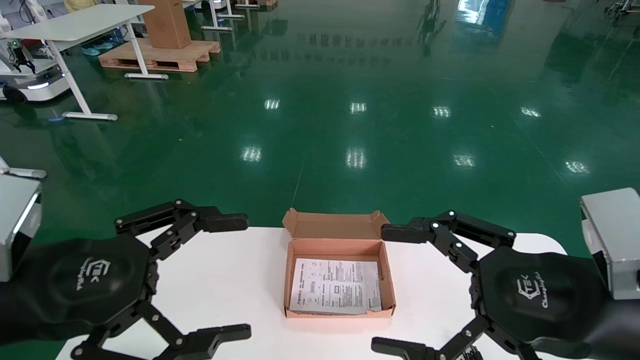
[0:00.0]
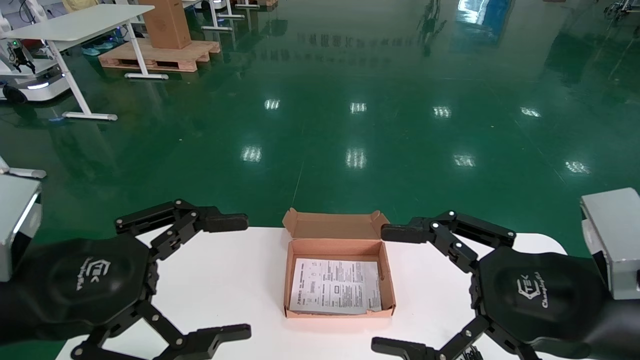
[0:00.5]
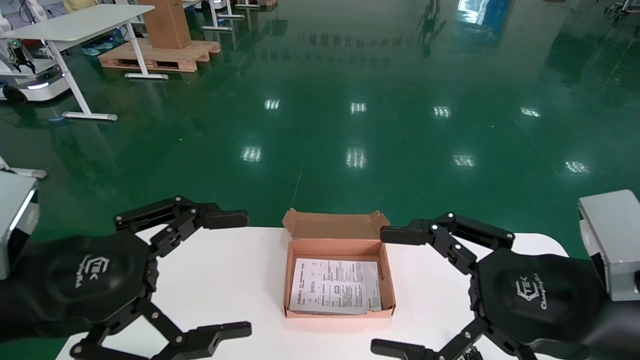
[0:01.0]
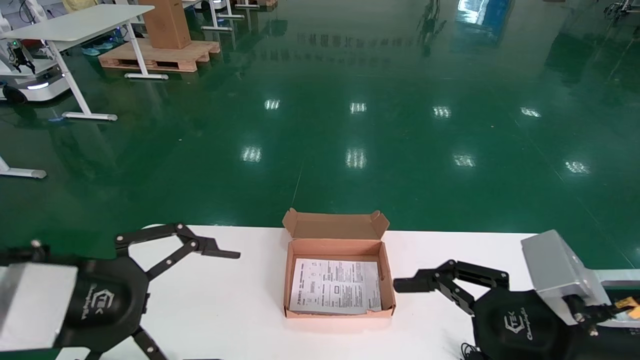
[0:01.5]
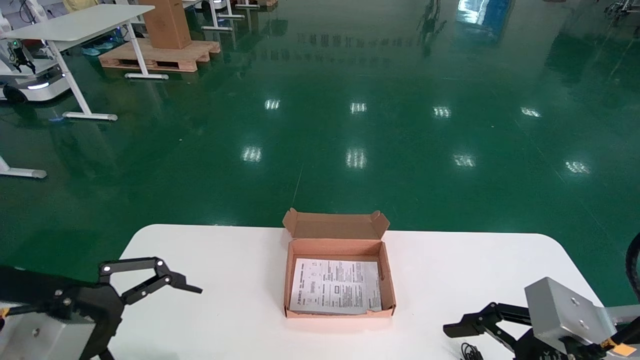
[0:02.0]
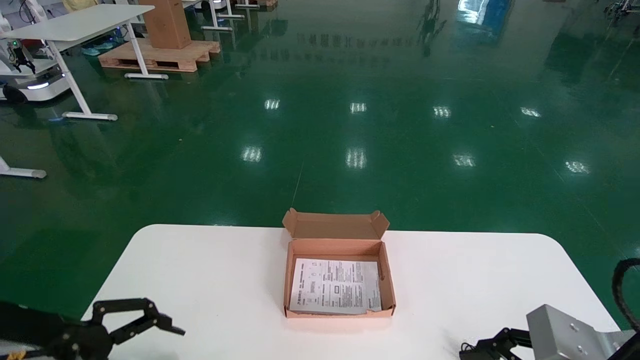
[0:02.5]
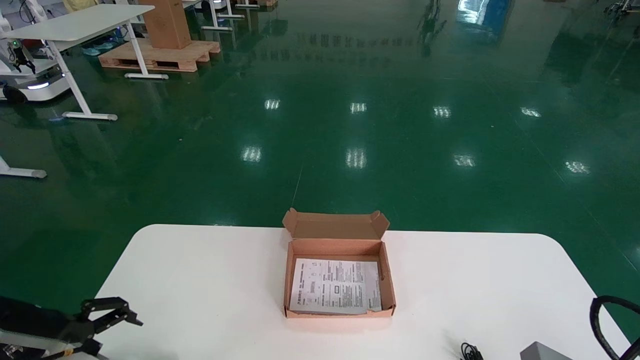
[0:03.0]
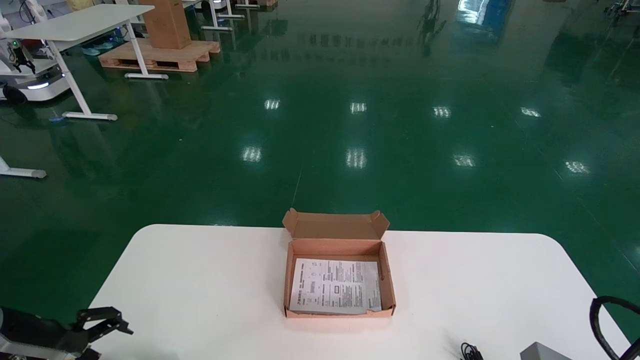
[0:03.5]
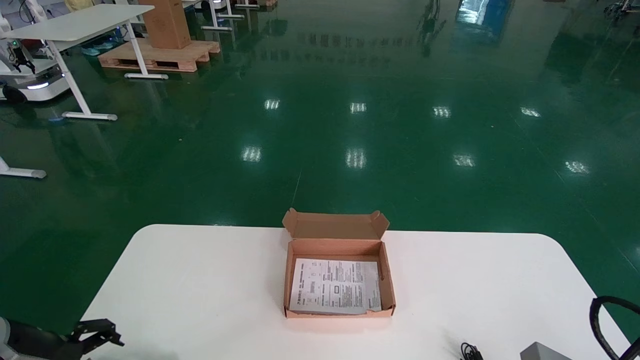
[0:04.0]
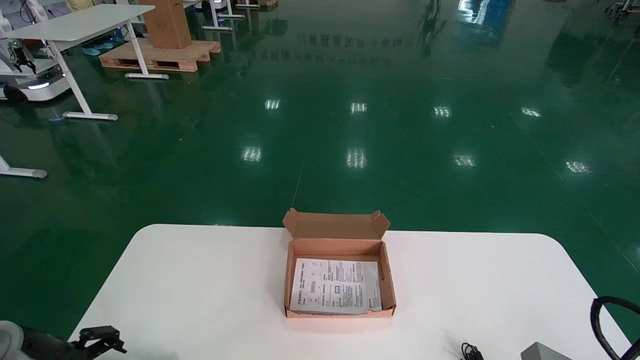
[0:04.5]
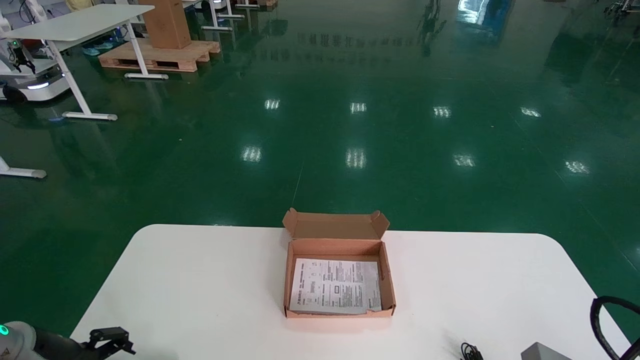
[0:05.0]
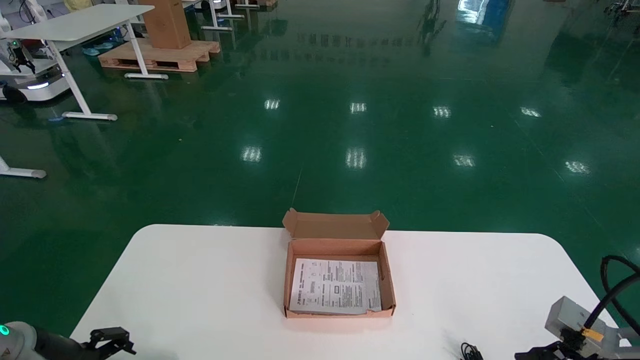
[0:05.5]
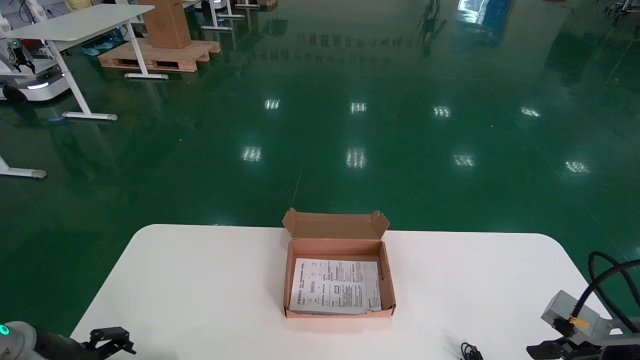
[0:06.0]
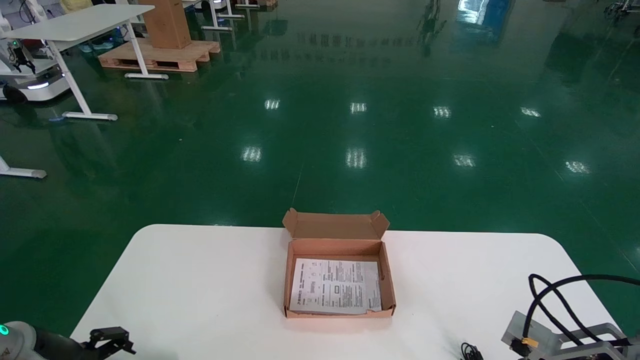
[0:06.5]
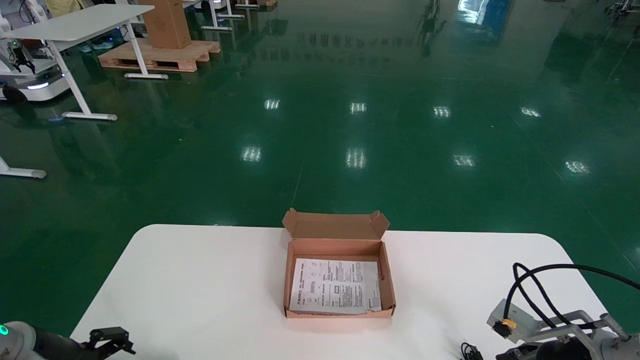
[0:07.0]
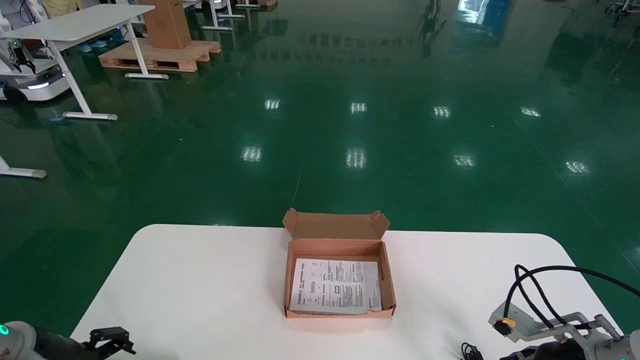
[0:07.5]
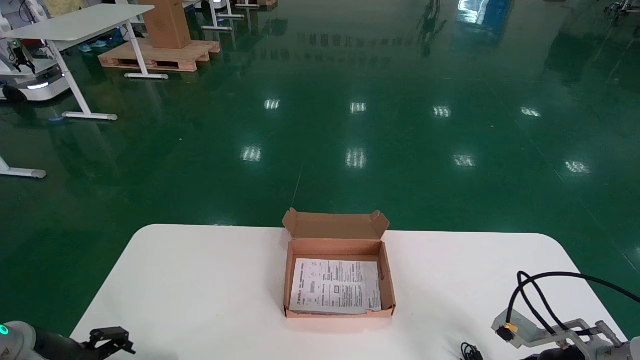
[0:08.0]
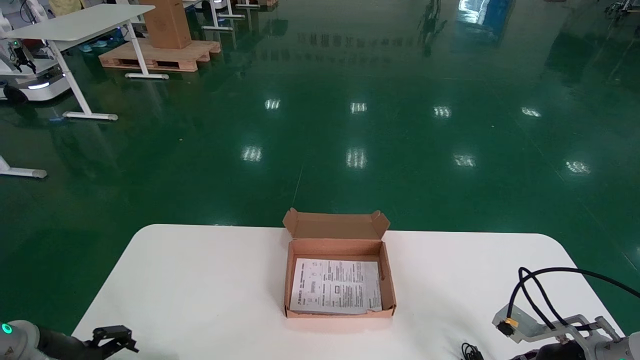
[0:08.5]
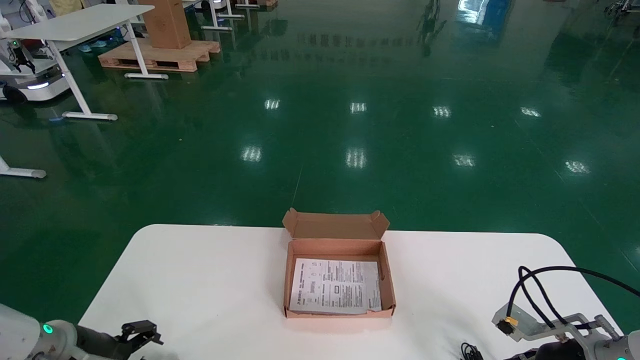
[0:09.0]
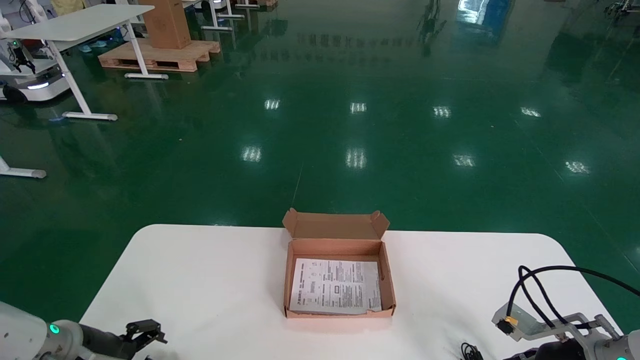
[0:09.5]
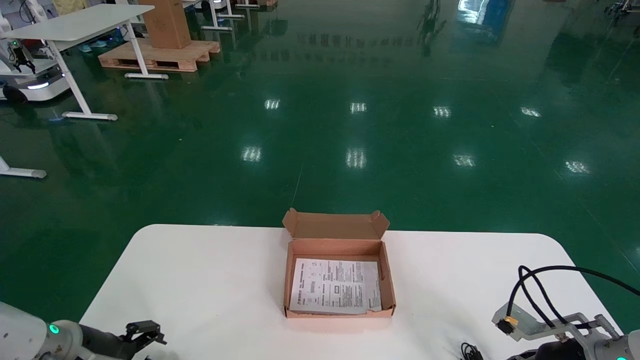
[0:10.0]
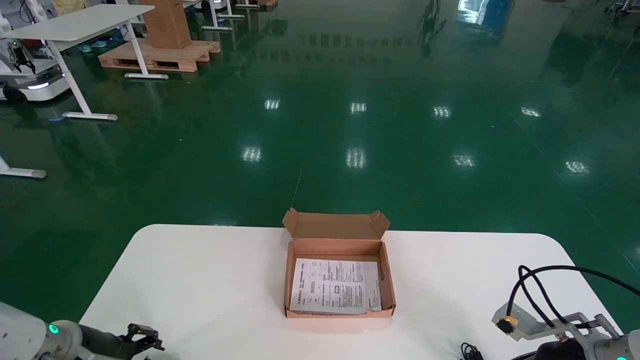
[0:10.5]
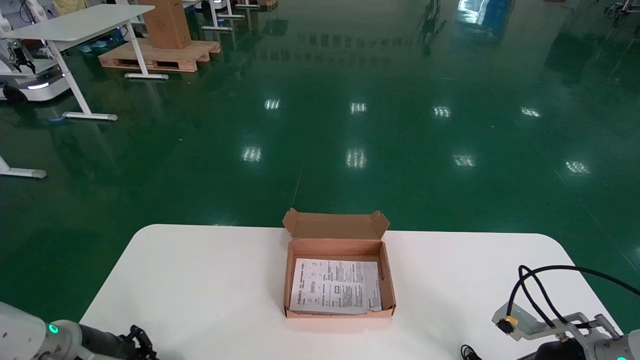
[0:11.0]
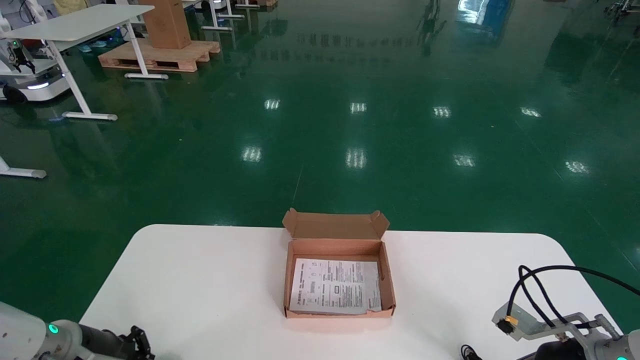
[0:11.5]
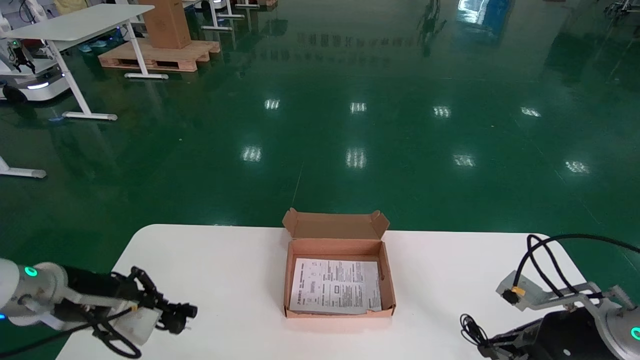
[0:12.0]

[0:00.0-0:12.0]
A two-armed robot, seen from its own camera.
Step, 0:01.5 to 0:12.0: Grab and pick up the mouse and power cord from the accessory packaging area.
0:00.0 to 0:02.0: The right gripper shifts by approximately 5 cm.
0:02.0 to 0:04.0: The right gripper is displaced downward by about 5 cm; the left gripper is displaced downward, forward and to the left by about 15 cm.
0:04.0 to 0:06.0: The right gripper shifts by some 5 cm; the left gripper shifts by some 5 cm.
0:06.0 to 0:08.0: The right gripper shifts roughly 15 cm forward and downward.
0:08.0 to 0:10.0: There are only small adjustments of the grippers.
0:10.0 to 0:12.0: The left gripper closes its fingers. Meanwhile the right gripper closes up.

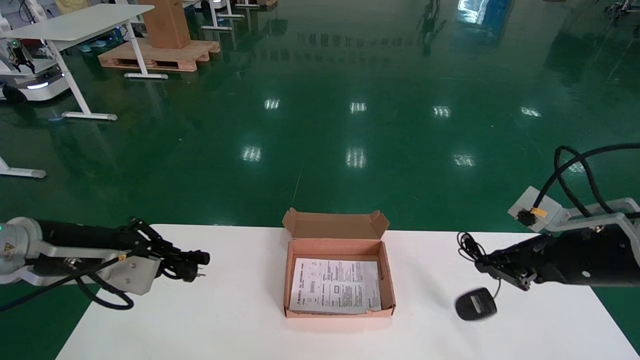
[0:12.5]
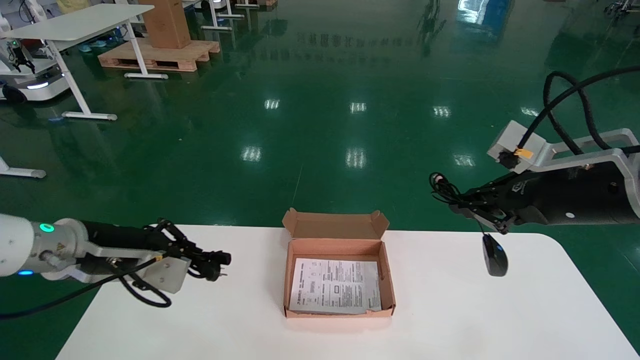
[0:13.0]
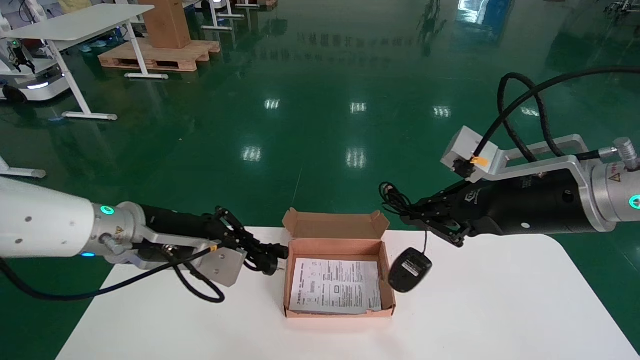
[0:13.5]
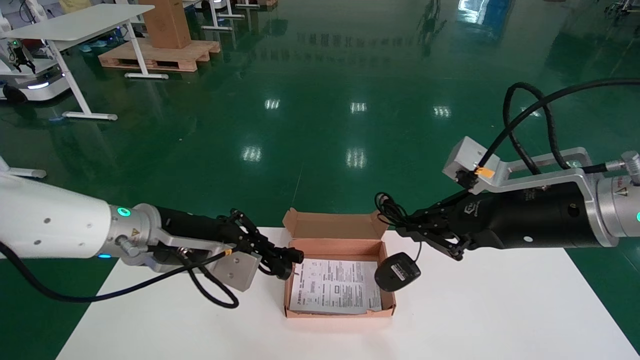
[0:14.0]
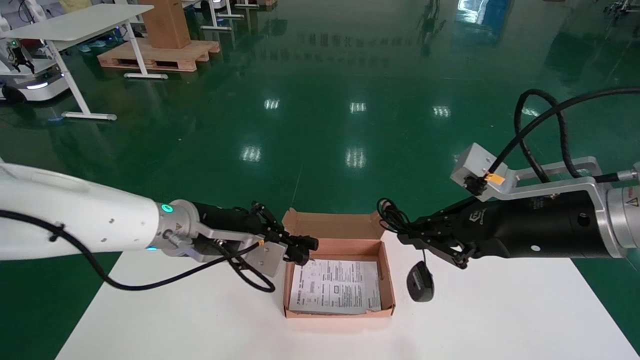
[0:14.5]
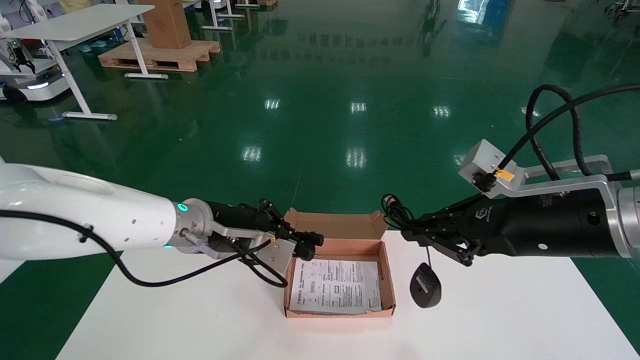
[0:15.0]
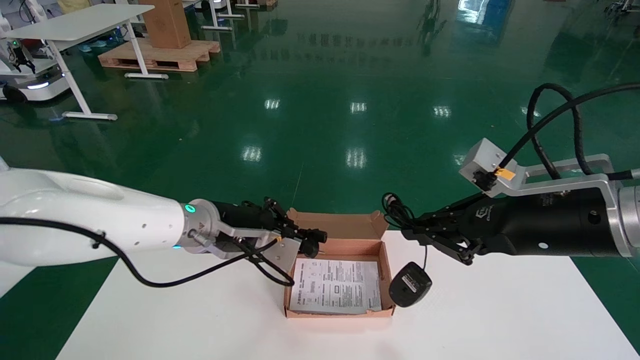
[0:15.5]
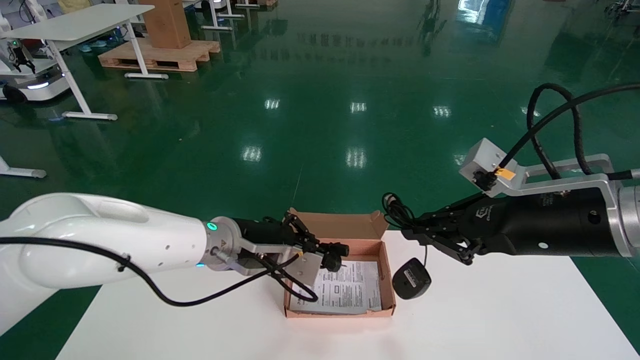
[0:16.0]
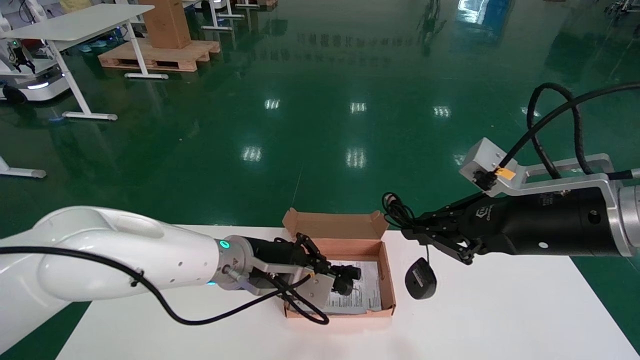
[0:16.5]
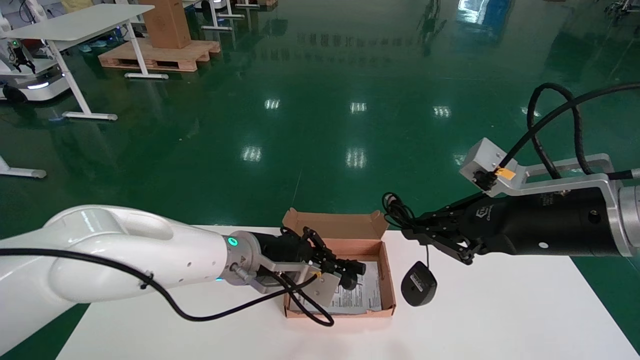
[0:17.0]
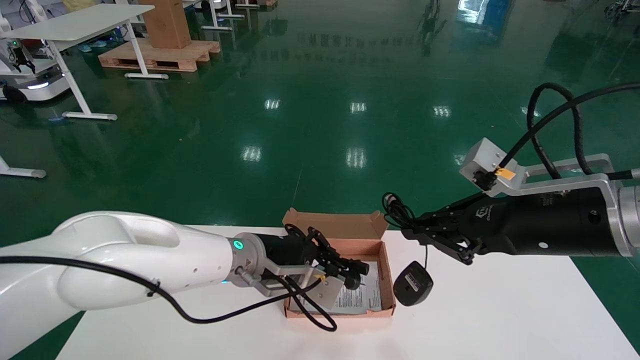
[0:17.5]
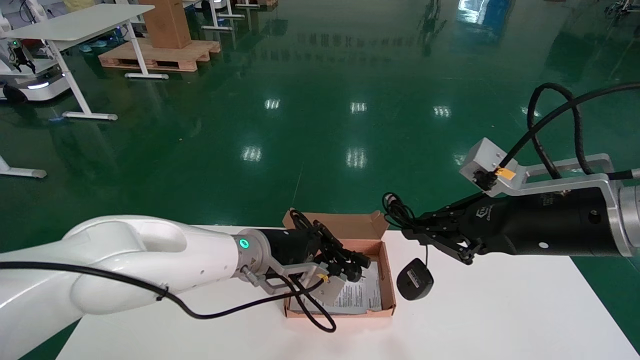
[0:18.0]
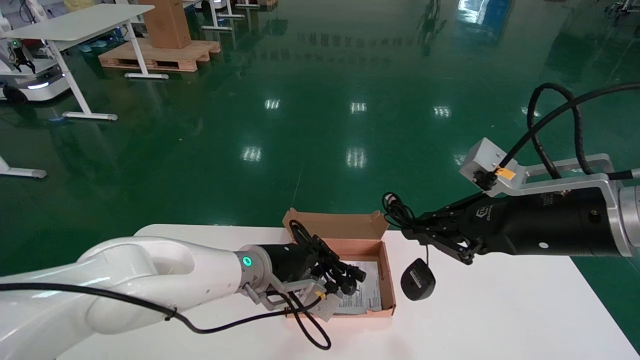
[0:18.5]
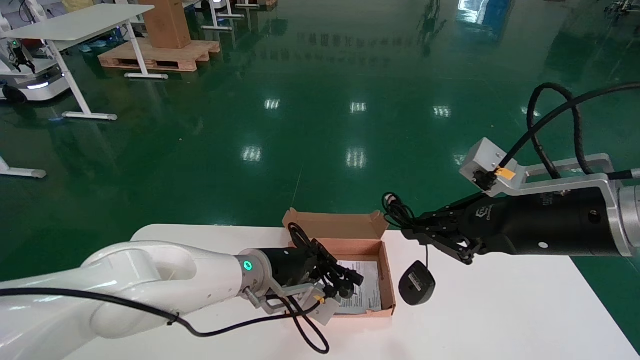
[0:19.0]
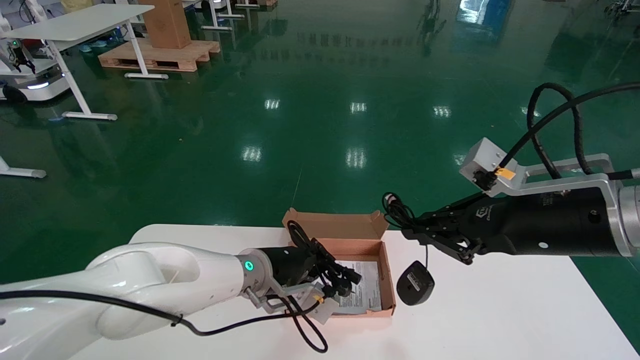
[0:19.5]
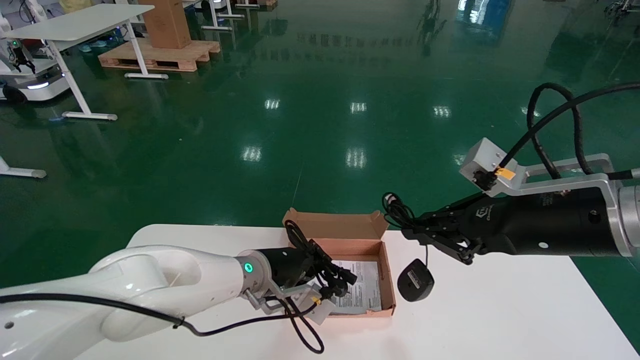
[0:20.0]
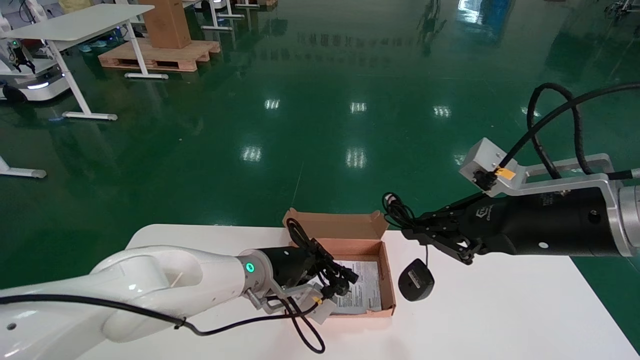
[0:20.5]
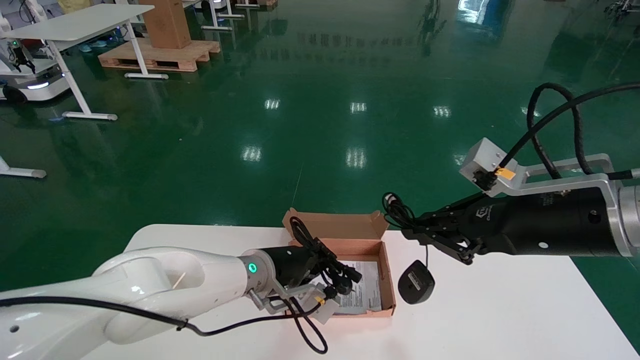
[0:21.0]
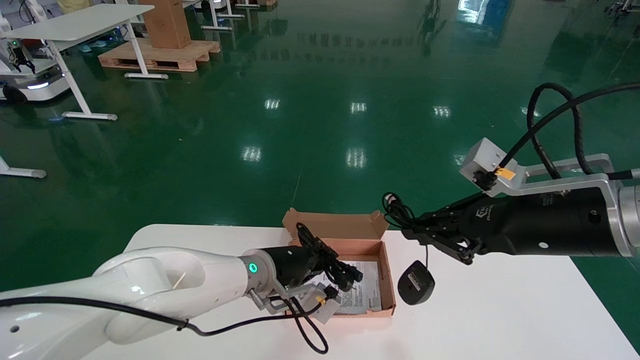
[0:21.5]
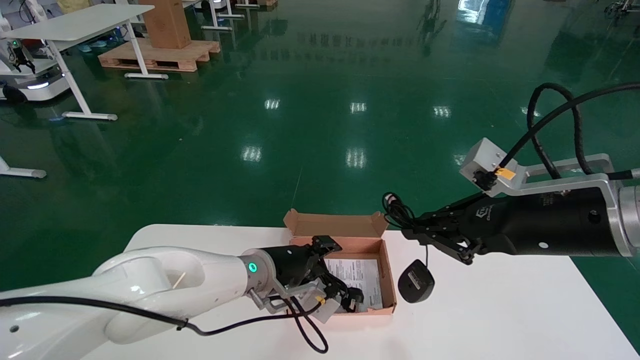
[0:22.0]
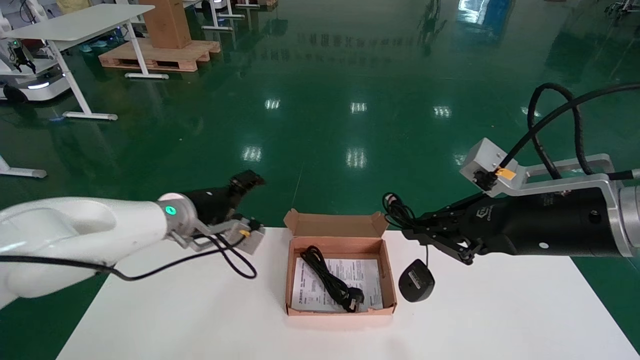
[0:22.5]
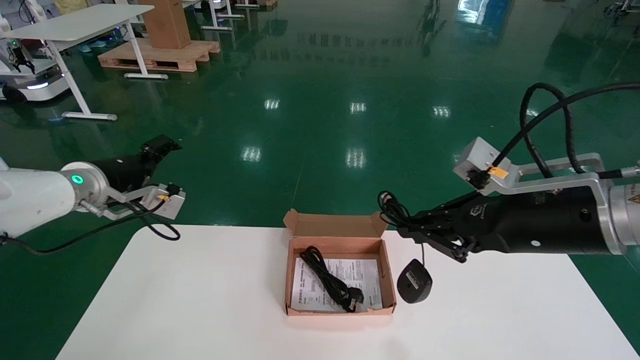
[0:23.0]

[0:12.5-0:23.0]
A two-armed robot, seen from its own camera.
0:12.5 to 0:14.5: The right gripper moves upward and to the left, about 25 cm. The left gripper moves to the right and upward, about 15 cm.
0:14.5 to 0:16.5: The left gripper shifts some 10 cm to the right.
0:16.5 to 0:19.0: The left gripper moves some 5 cm.
0:19.0 to 0:21.0: The grippers move only a little.
0:21.0 to 0:23.0: The left gripper is displaced to the left and upward by about 10 cm, and opens.
